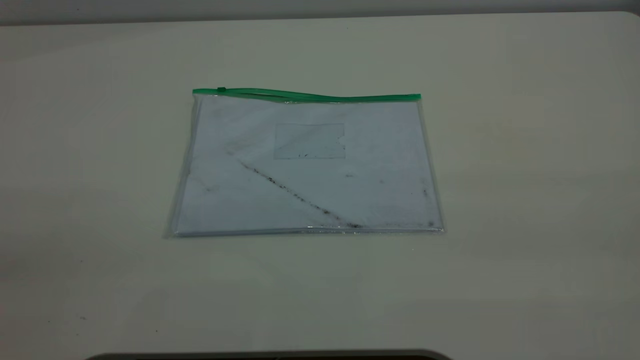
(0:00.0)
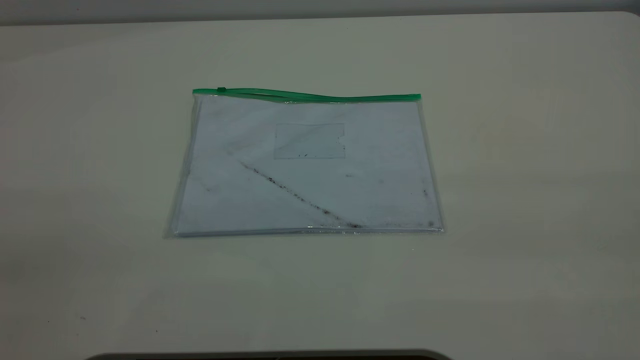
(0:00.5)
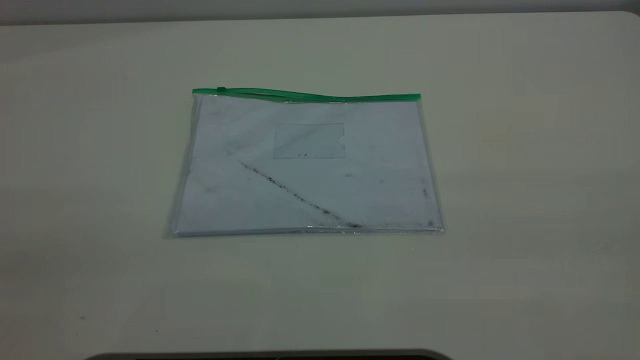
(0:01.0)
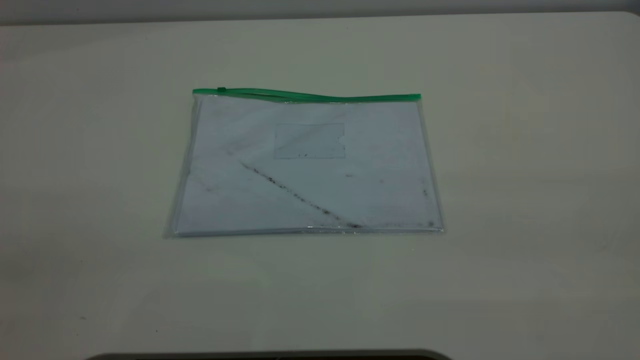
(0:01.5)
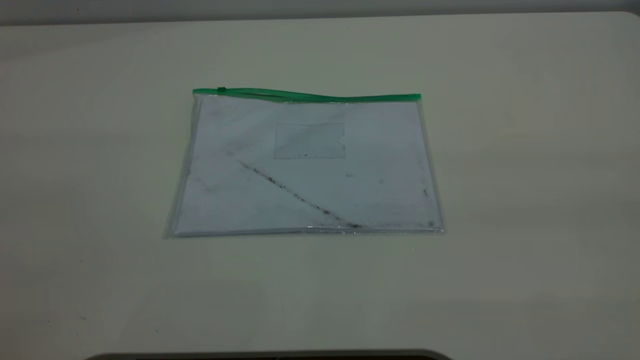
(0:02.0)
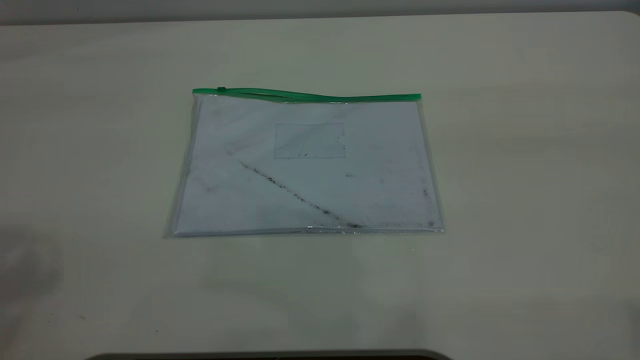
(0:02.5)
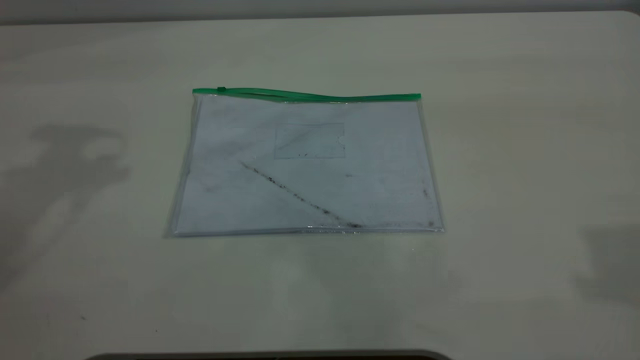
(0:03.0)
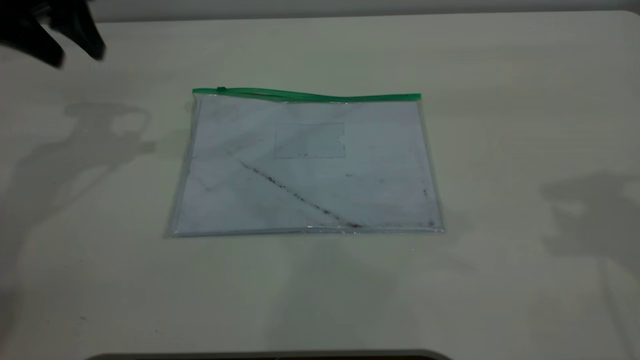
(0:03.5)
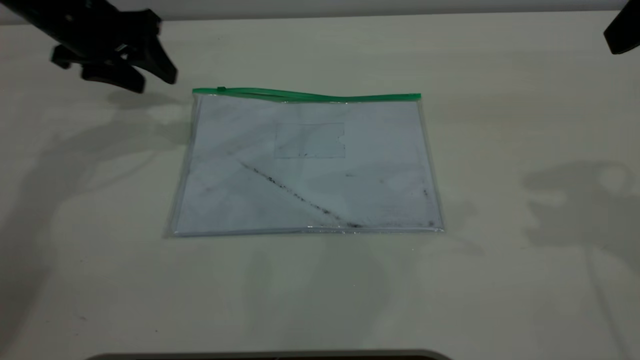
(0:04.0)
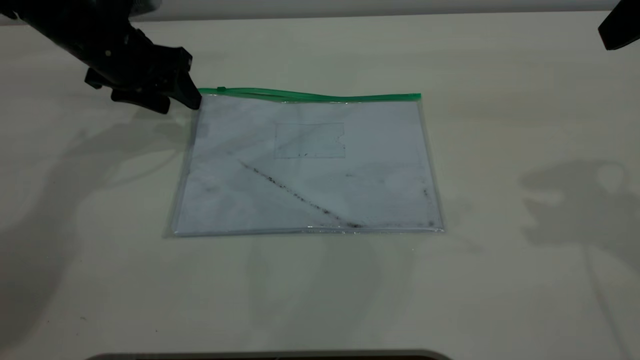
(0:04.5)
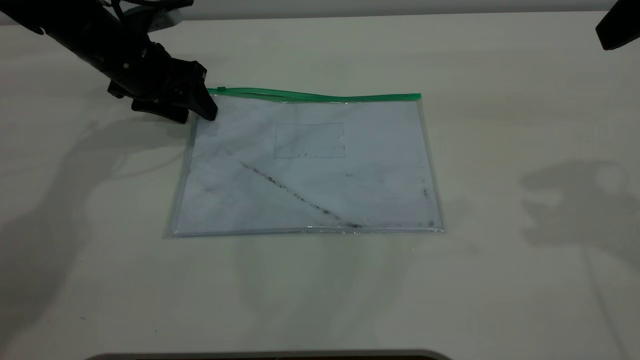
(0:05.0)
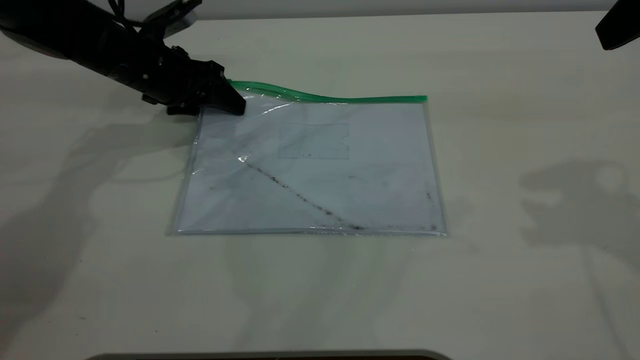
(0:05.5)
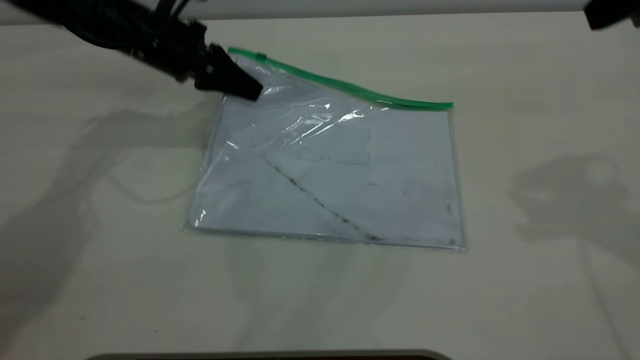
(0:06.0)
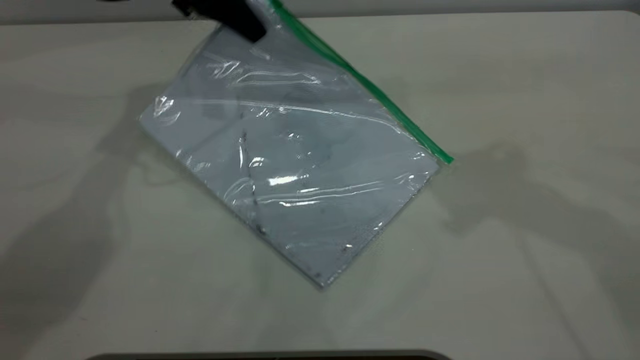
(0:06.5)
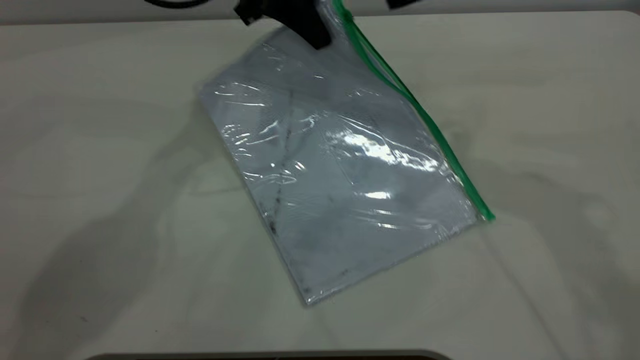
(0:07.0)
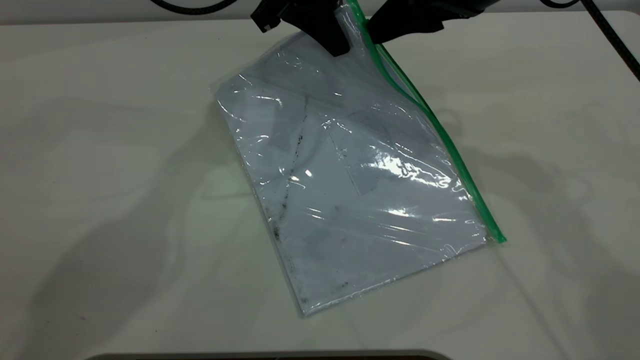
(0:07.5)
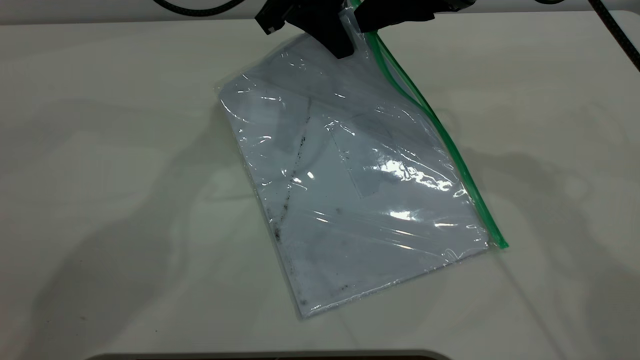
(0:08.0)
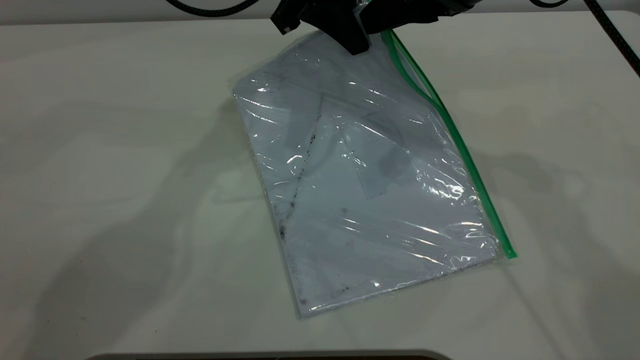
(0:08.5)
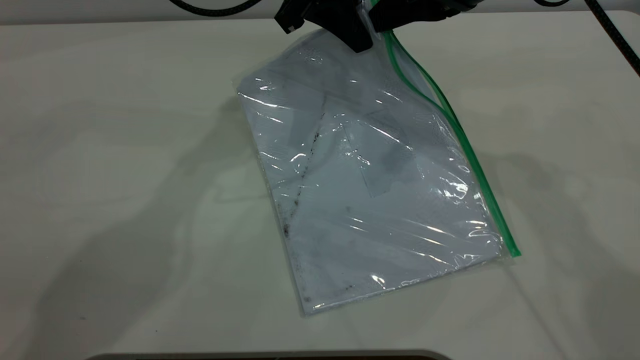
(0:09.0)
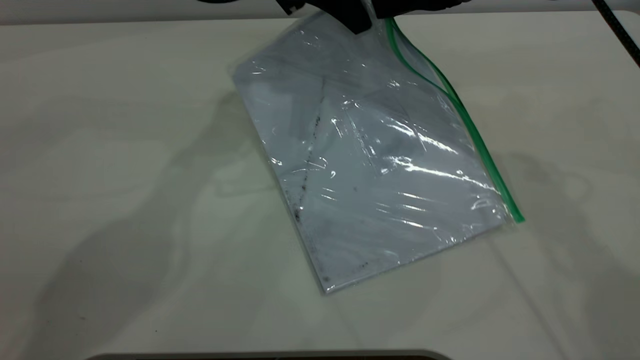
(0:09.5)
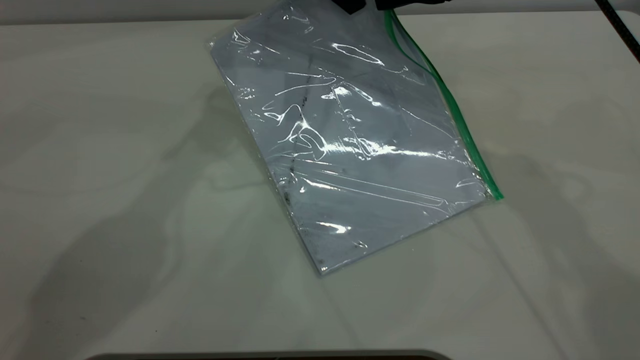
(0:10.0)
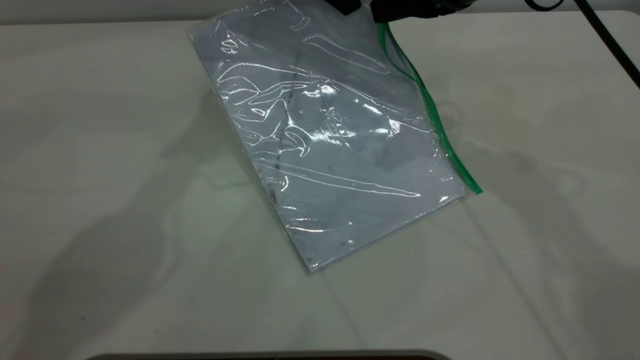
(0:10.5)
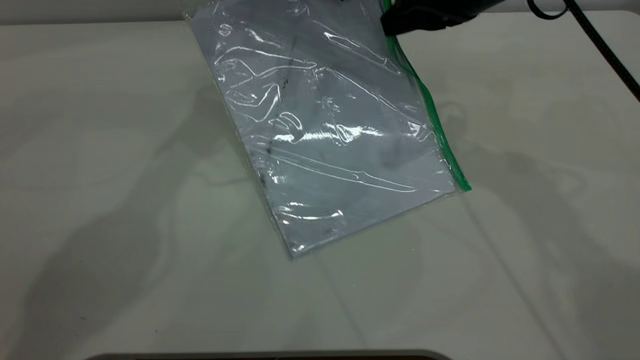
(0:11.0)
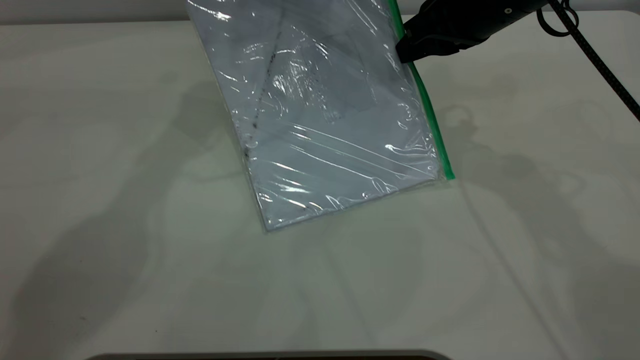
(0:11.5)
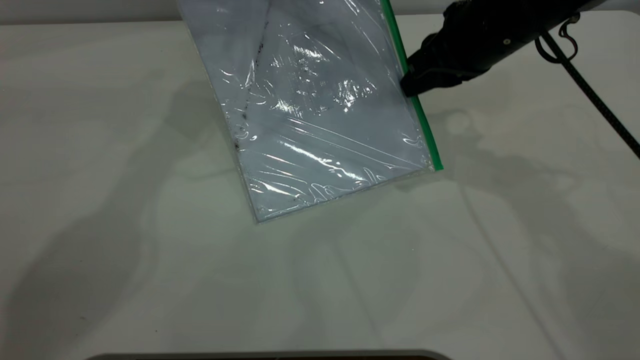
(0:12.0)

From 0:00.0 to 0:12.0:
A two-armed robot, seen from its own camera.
Step, from 0:00.0 to 0:06.0: Pick up the transparent plastic bag with the left gripper.
From 0:02.0 to 0:04.0: The left gripper heads forward and downward, covering about 50 cm.
From 0:04.0 to 0:06.0: The left gripper goes approximately 5 cm to the right, and closes up.
From 0:06.0 to 0:08.0: The left gripper moves to the right and upward, roughly 20 cm. Meanwhile the right gripper travels to the left, forward and downward by roughly 15 cm.
From 0:08.0 to 0:10.0: The right gripper closes its fingers.
From 0:10.0 to 0:12.0: The right gripper moves downward, some 5 cm, while the left gripper shifts by roughly 5 cm.

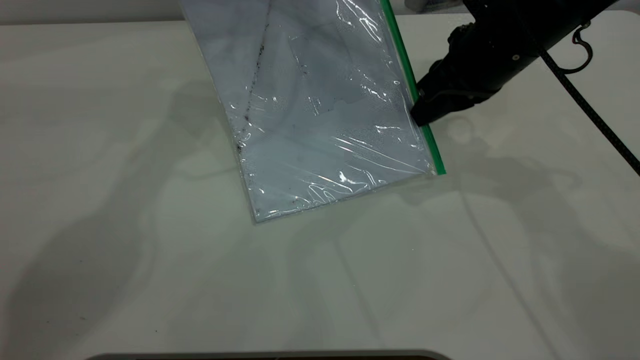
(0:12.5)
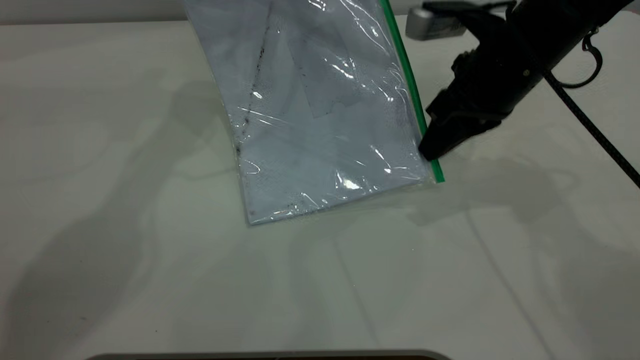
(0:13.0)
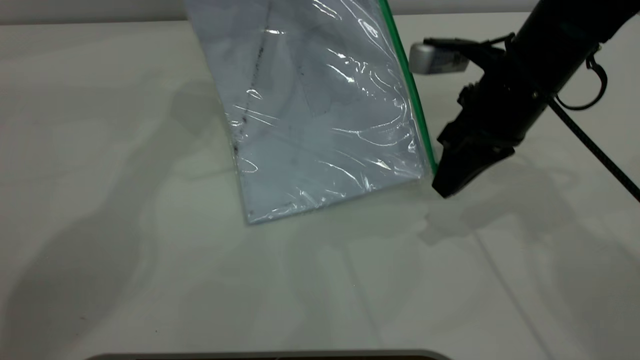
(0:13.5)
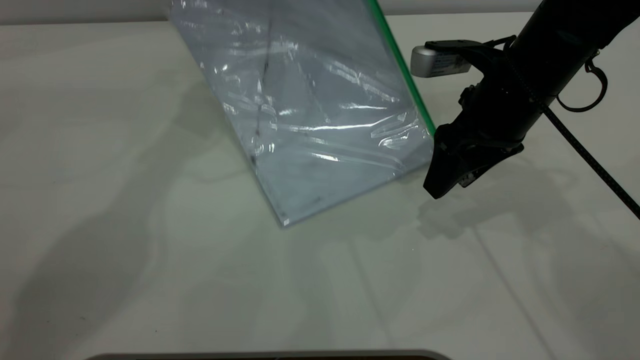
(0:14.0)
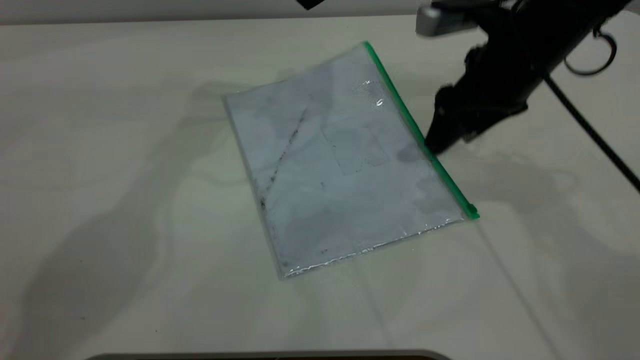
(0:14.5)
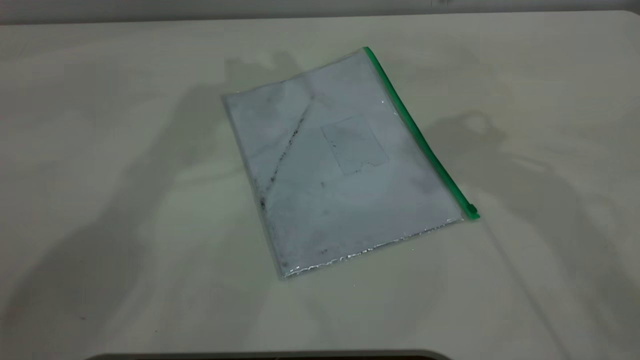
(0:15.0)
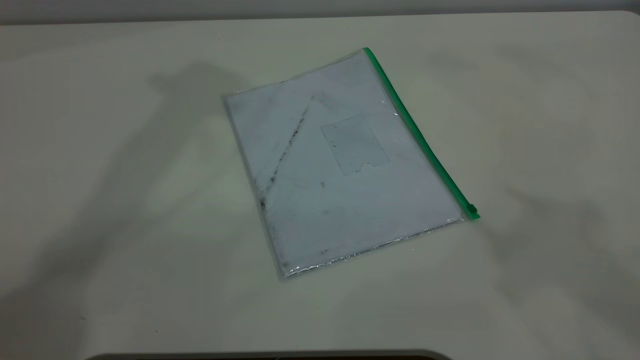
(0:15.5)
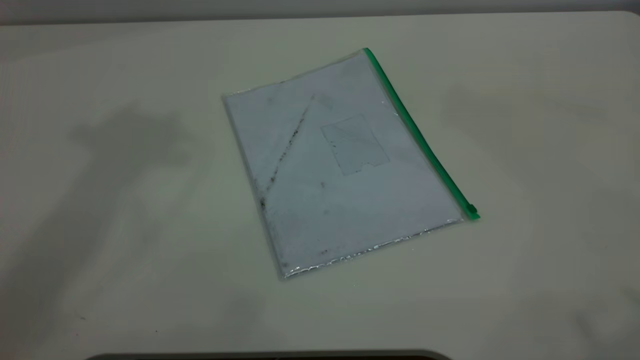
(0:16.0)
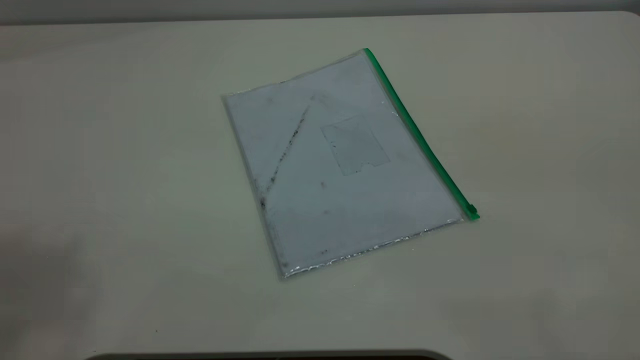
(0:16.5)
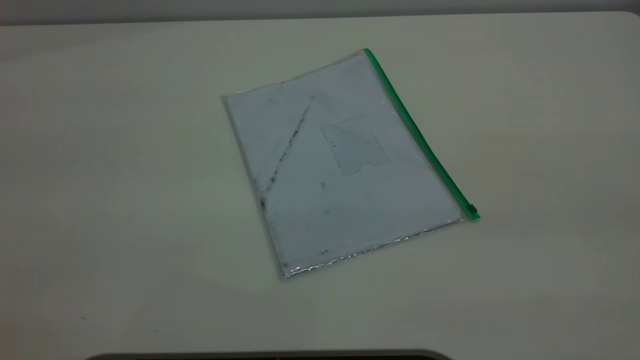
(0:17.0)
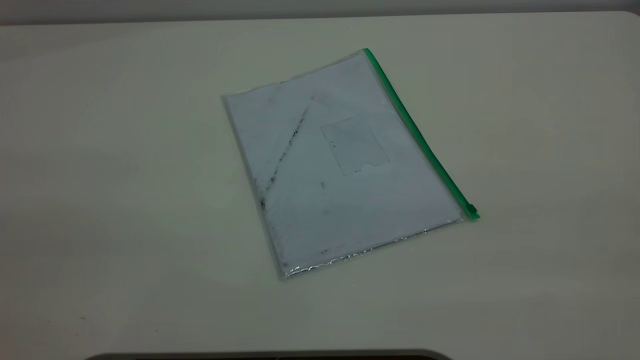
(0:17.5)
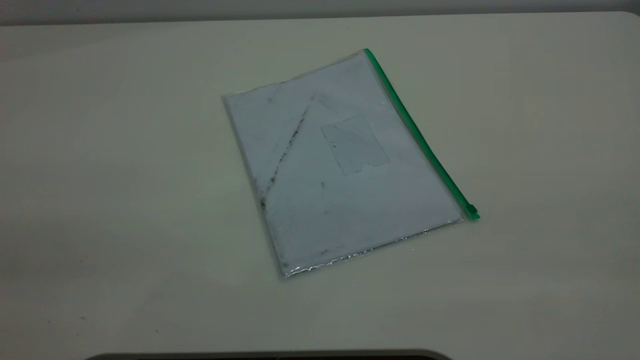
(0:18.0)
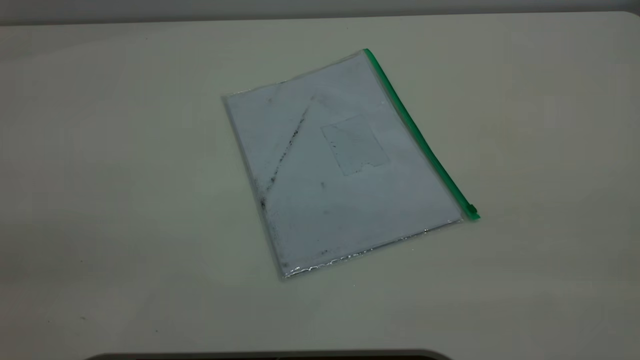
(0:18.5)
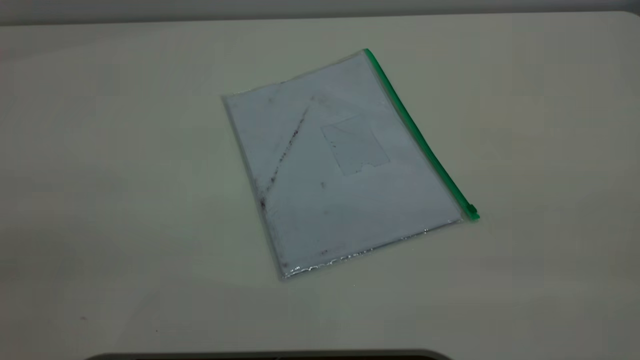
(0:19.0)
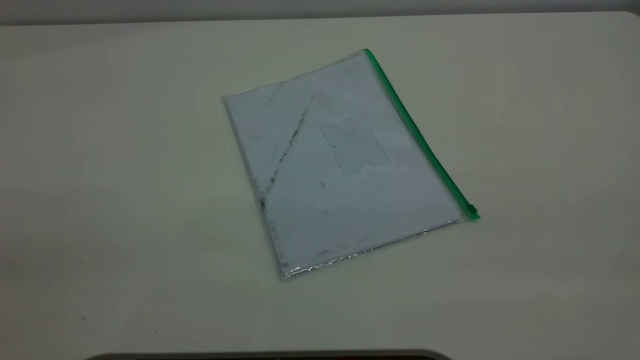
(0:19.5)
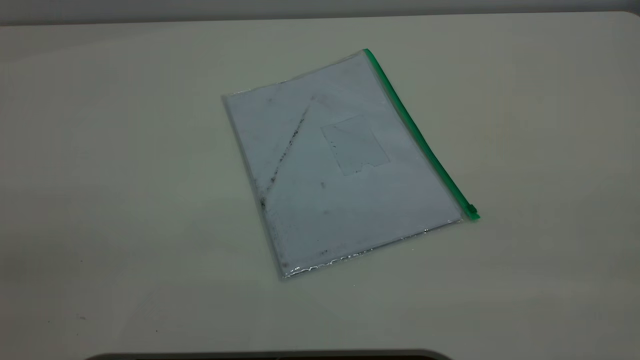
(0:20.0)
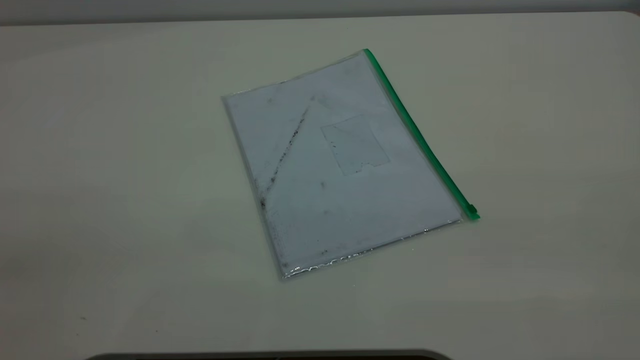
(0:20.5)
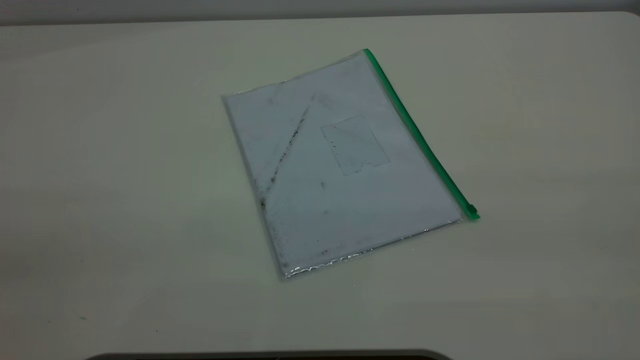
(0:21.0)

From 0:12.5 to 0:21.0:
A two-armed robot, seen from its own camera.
From 0:12.5 to 0:14.5: The right gripper opens its fingers, while the left gripper opens its fingers.
From 0:14.5 to 0:16.5: The left gripper travels backward, upward and to the left by some 50 cm; the right gripper moves backward and upward, approximately 40 cm.
